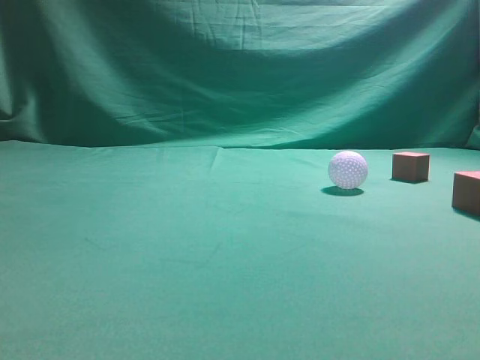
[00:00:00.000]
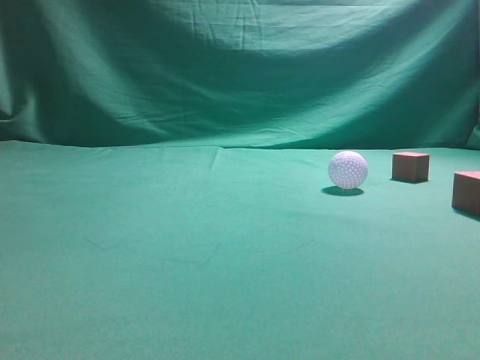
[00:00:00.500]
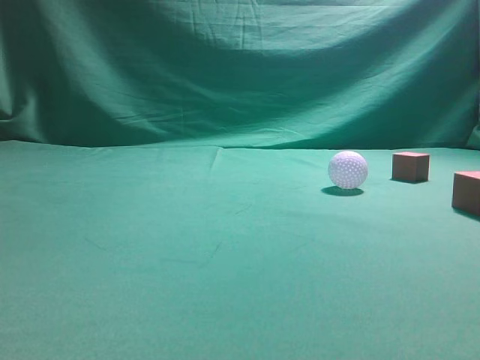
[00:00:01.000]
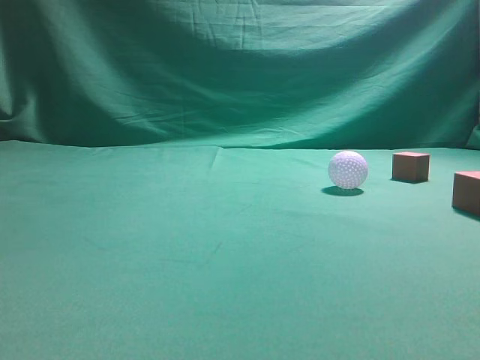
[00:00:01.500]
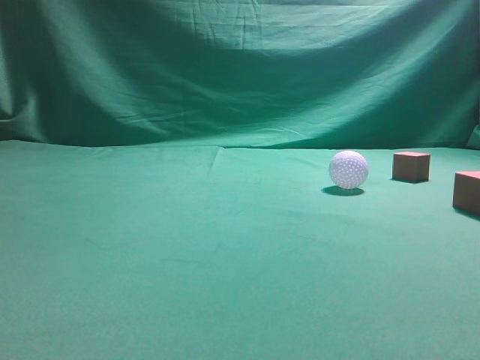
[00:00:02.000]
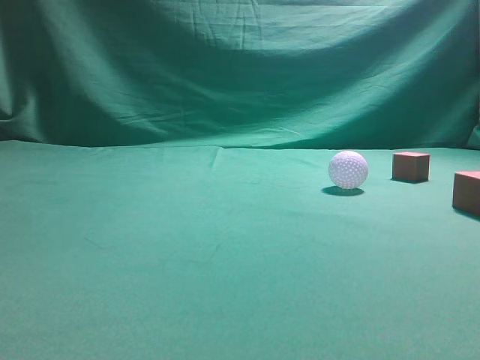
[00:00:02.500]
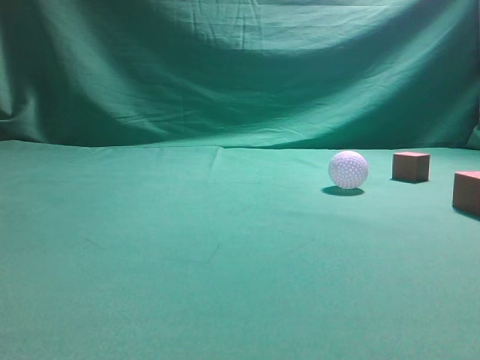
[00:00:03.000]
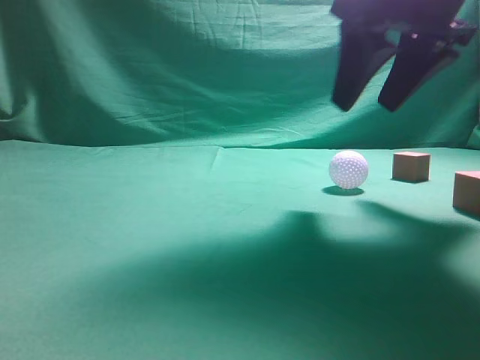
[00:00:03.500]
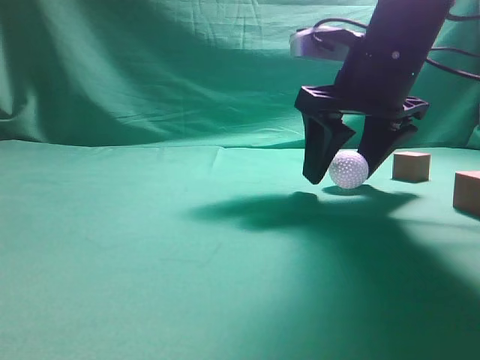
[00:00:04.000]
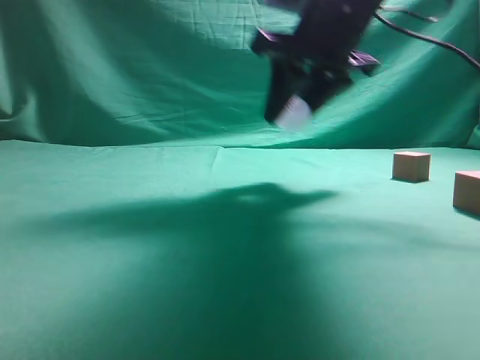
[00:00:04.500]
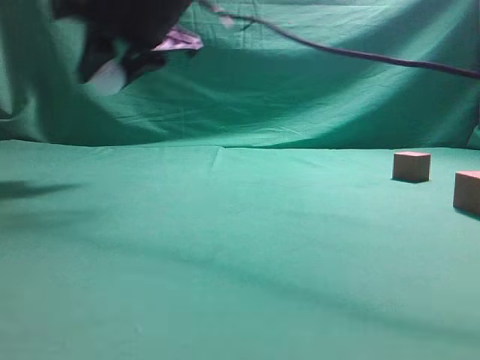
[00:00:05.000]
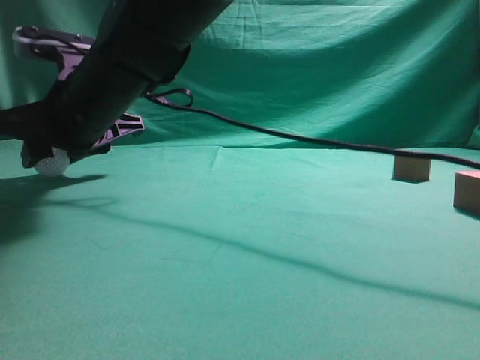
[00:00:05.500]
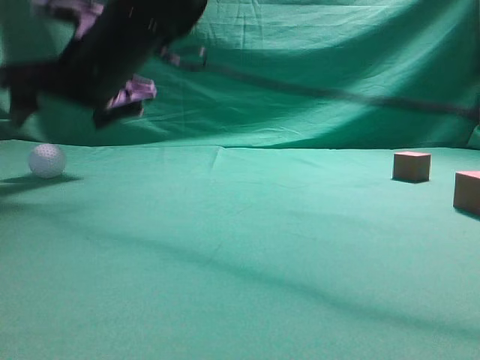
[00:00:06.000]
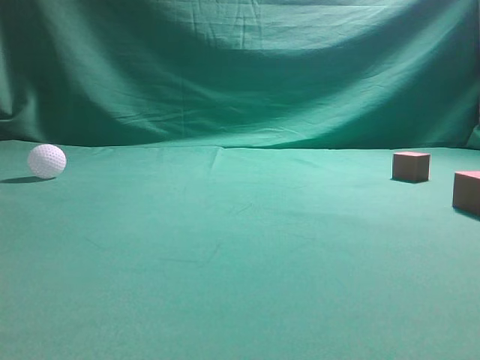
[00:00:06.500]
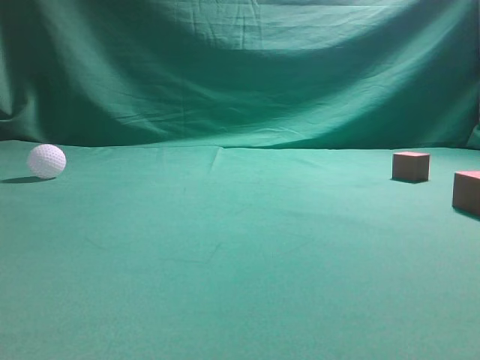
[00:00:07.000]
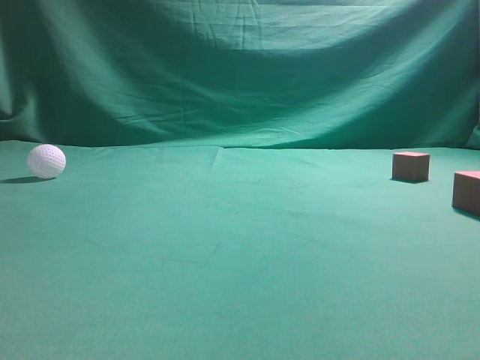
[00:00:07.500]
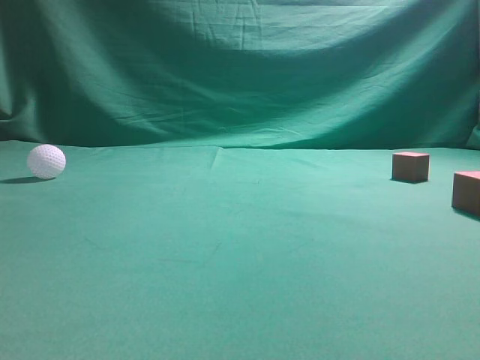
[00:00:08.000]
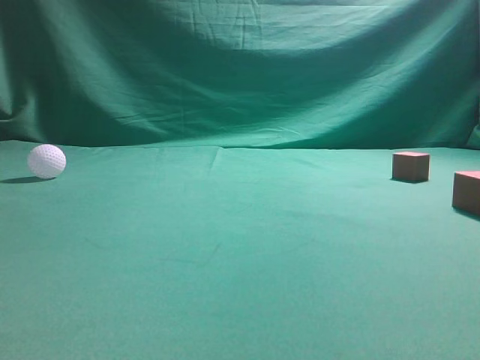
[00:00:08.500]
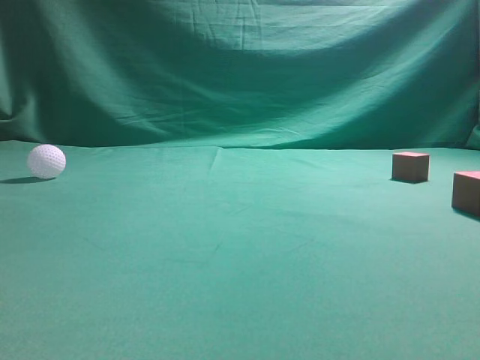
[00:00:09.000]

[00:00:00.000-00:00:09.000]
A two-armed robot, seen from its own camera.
Step, 00:00:00.000 to 00:00:03.500: Grasp the spherical object on the right side.
00:00:02.000 to 00:00:04.500: The right gripper heads forward and to the left, covering approximately 40 cm, and opens its fingers.
00:00:04.500 to 00:00:07.000: The right gripper travels upward and backward by some 25 cm, and closes up.
